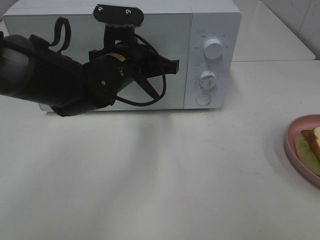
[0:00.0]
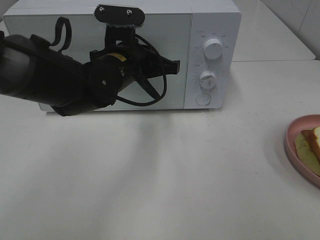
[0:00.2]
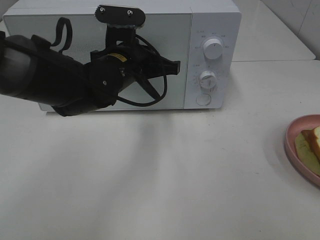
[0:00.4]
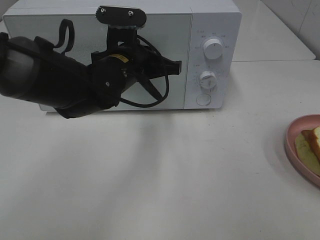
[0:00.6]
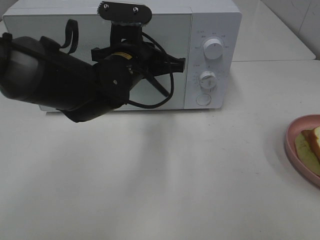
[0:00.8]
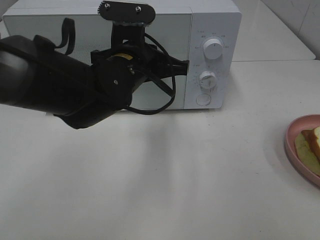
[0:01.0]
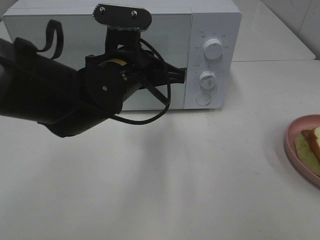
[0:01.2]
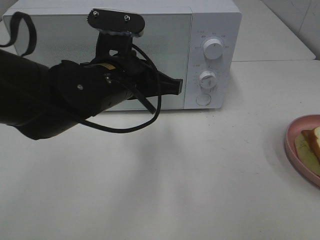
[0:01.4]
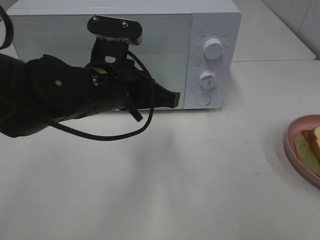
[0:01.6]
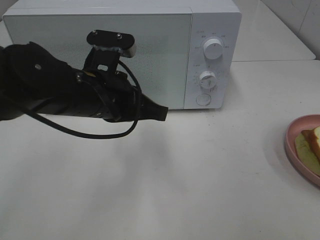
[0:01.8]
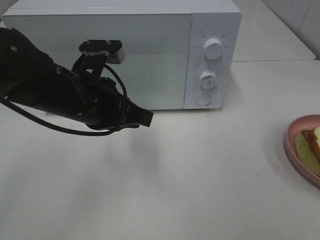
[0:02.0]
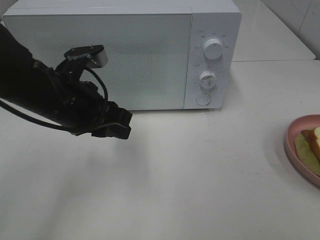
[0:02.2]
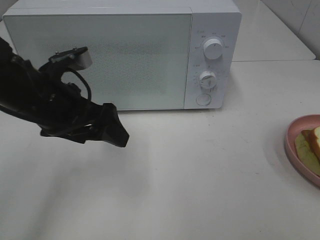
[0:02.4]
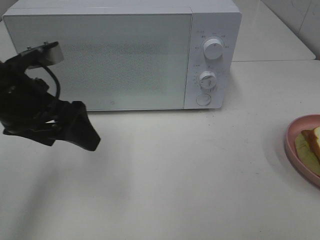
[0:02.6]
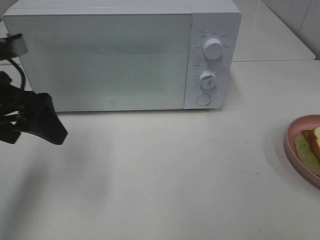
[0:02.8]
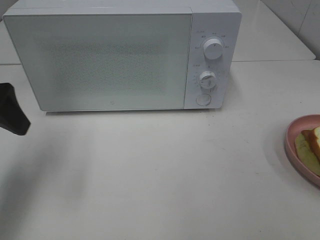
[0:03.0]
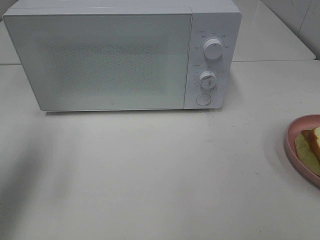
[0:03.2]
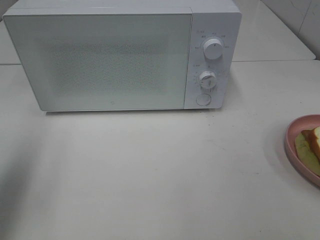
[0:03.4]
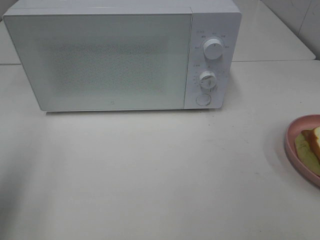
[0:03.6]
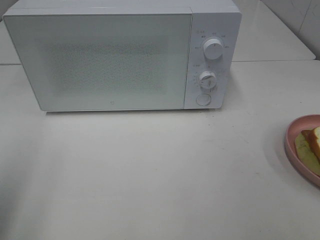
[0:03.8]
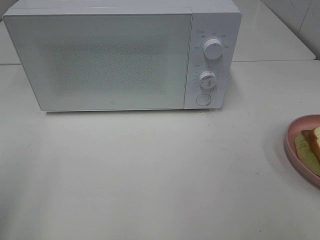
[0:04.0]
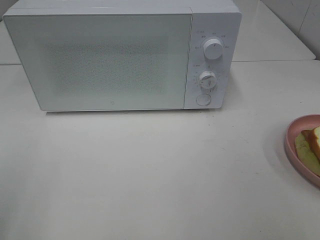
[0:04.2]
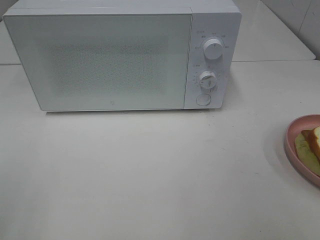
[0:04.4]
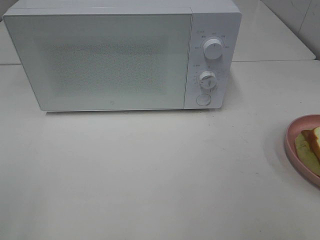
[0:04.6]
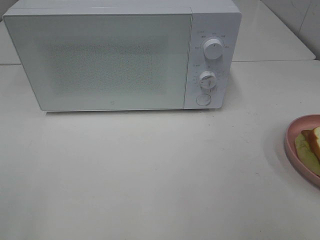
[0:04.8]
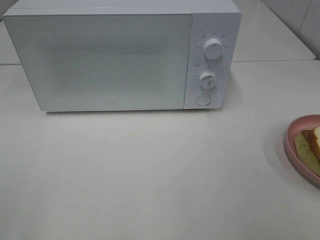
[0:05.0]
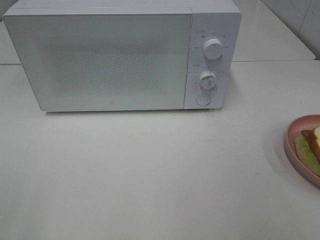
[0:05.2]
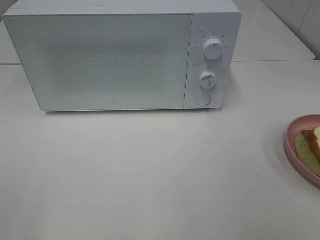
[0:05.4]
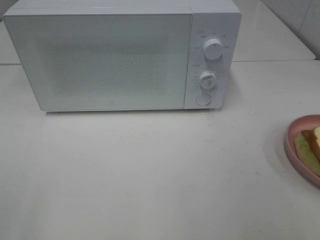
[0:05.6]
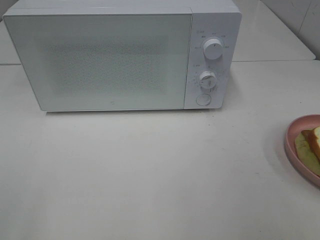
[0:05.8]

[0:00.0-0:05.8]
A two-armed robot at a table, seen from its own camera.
Task of the whole recording: Heat Sandwich.
0.0 to 1.4 s: The left gripper is displaced backward by some 5 cm.
1.4 to 2.8 s: The left gripper is displaced to the left by roughly 15 cm, and opens.
2.8 to 4.4 s: The left gripper heads backward and to the left, covering some 25 cm.

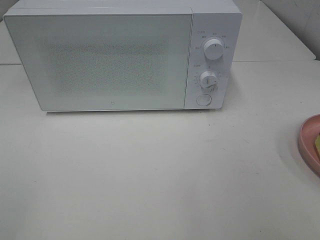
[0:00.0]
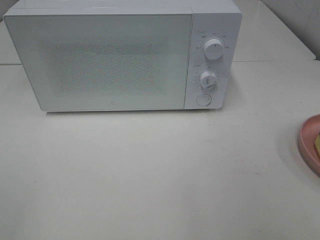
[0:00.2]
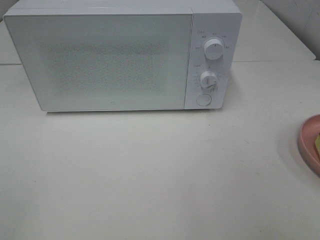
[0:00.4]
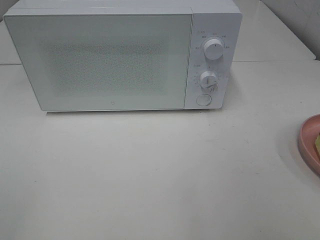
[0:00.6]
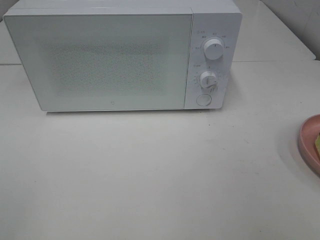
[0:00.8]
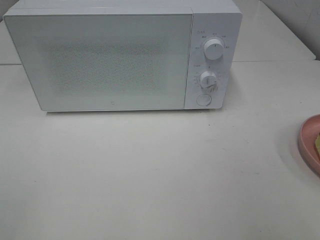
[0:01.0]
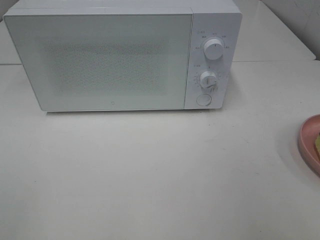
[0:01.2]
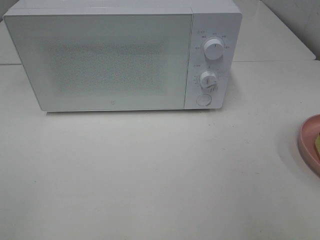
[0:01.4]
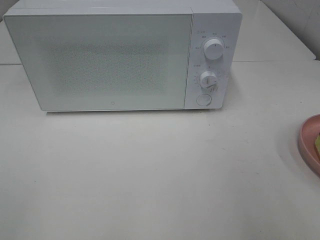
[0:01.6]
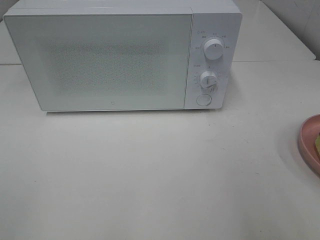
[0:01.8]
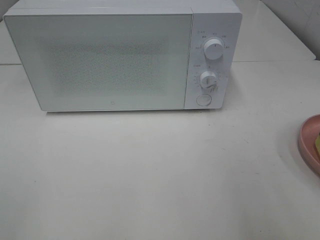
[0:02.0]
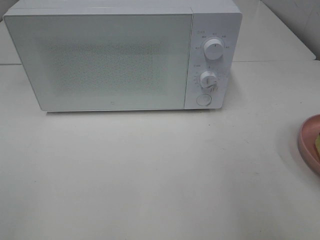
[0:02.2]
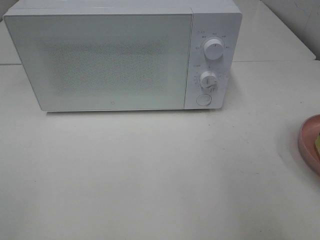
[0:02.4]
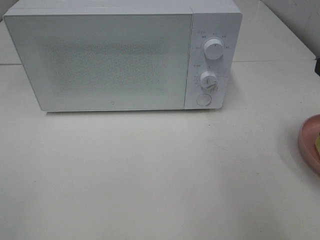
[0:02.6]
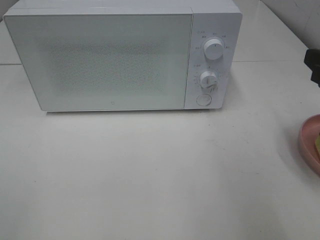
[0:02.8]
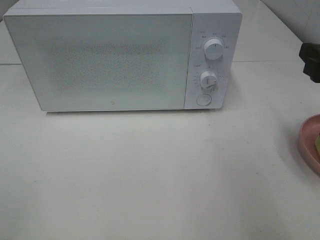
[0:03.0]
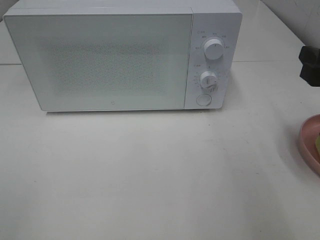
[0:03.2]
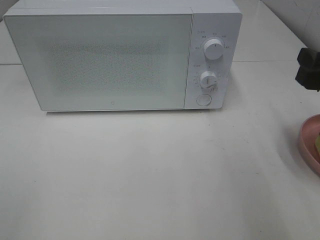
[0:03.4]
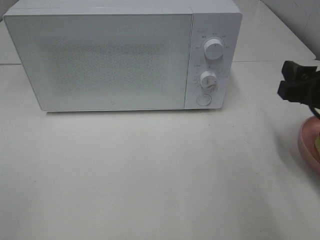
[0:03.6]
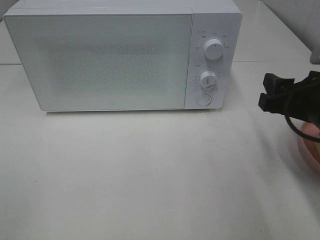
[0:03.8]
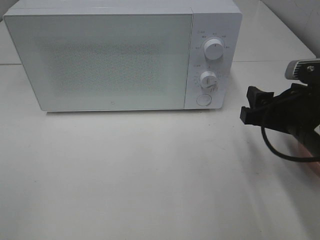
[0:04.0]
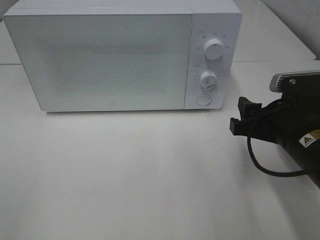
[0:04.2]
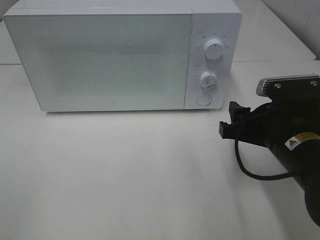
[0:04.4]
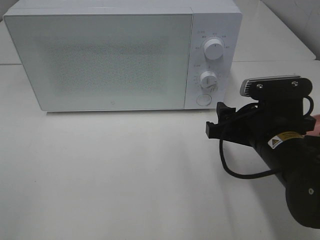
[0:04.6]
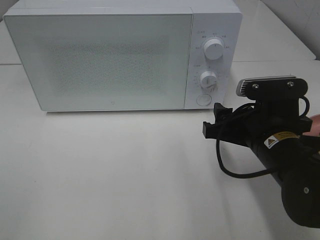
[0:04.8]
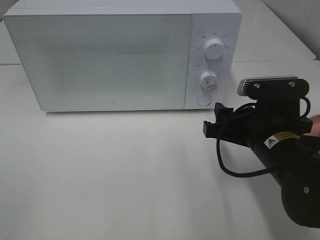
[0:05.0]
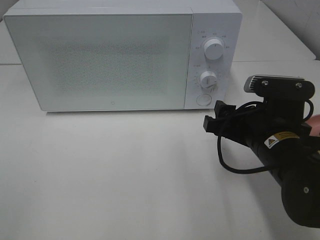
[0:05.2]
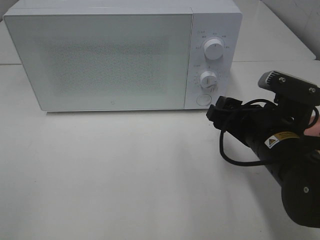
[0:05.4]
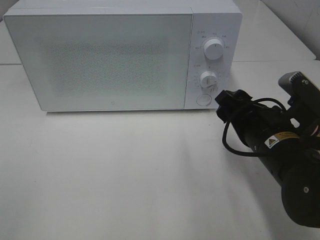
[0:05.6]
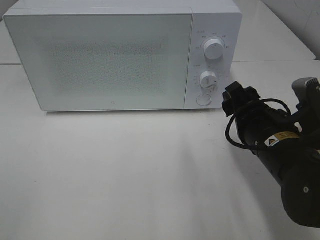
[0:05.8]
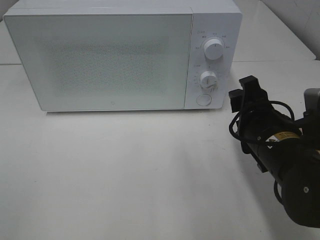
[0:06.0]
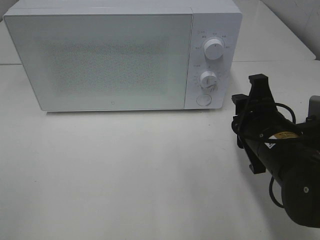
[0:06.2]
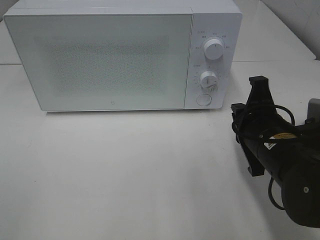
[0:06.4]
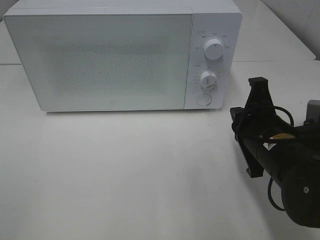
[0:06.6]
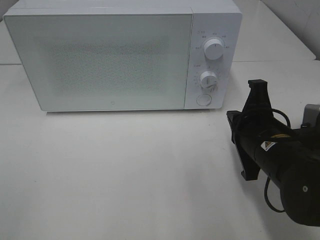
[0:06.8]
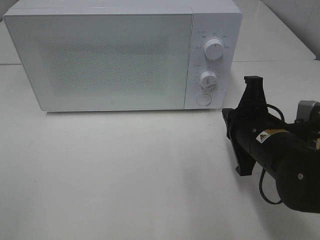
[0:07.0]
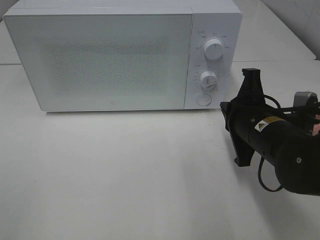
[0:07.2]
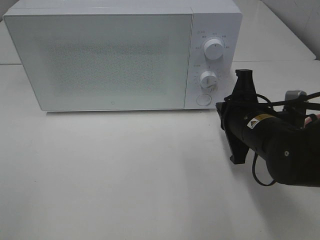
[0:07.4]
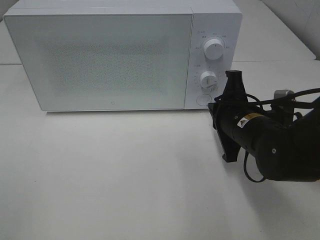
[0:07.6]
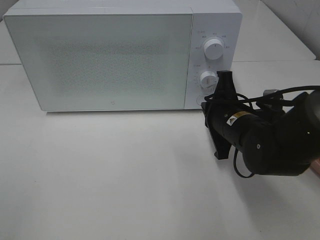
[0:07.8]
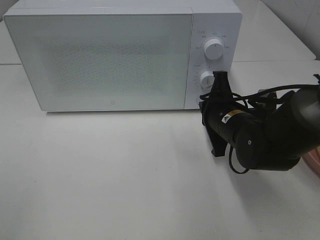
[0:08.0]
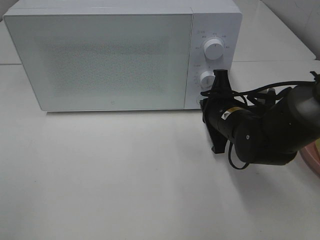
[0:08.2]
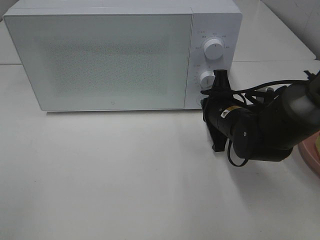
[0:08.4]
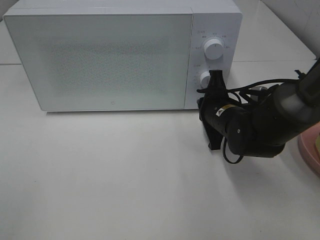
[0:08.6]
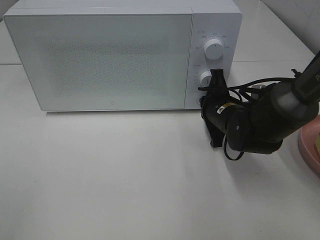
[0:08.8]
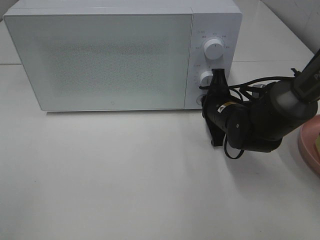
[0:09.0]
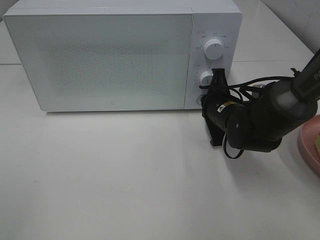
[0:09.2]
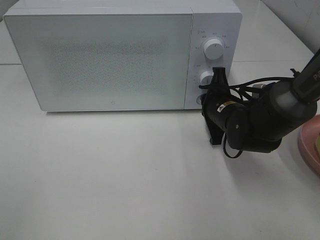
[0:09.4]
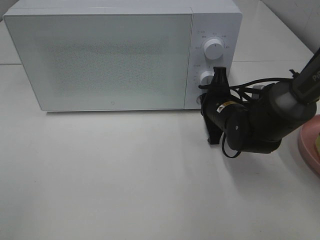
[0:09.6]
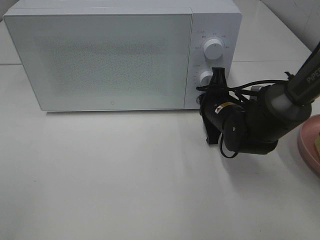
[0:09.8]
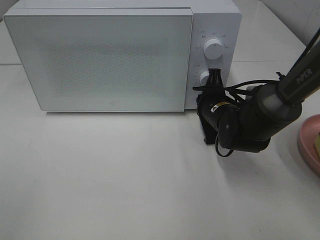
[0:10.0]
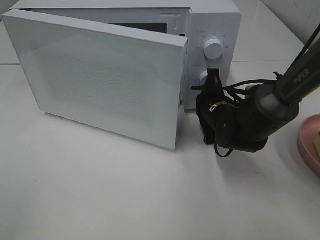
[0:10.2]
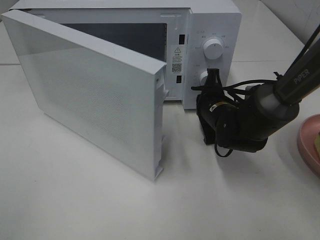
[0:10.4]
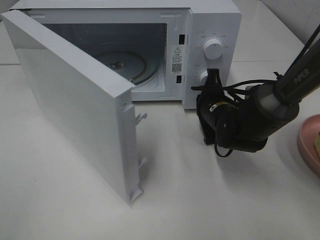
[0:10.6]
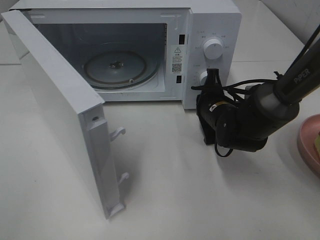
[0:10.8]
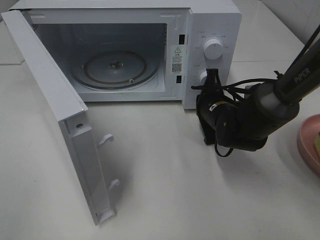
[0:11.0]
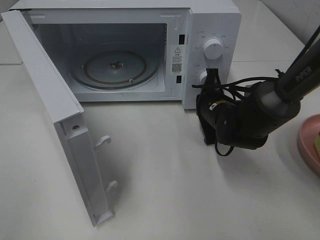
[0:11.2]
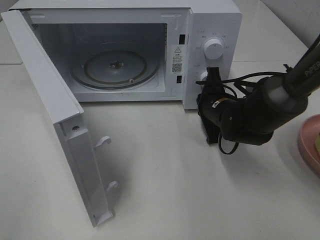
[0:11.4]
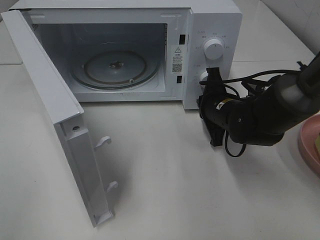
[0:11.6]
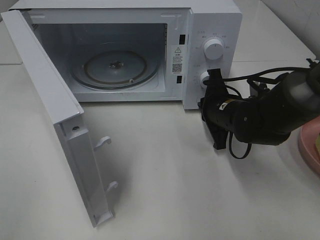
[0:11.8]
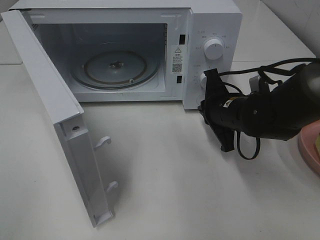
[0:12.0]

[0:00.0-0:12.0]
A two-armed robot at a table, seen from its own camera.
Task of the whole recording: Heat Sandwich.
Step, 0.0 to 12.0 s: Right hand: press the switch.
1.6 to 3.0 s: The right gripper is displaced forward by about 15 cm.
3.0 to 4.4 s: The right gripper heads downward and to the left, covering approximately 15 cm.
6.0 to 7.6 s: The right gripper goes about 5 cm forward, and closes its fingers.
7.6 to 9.0 s: The right gripper goes some 10 cm forward.

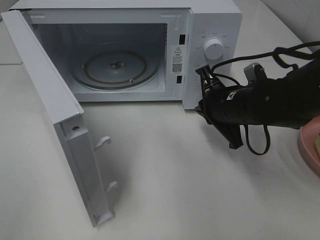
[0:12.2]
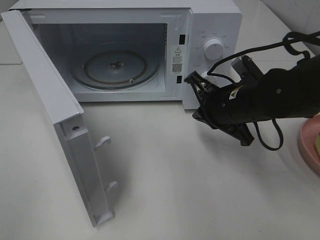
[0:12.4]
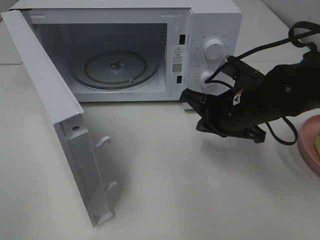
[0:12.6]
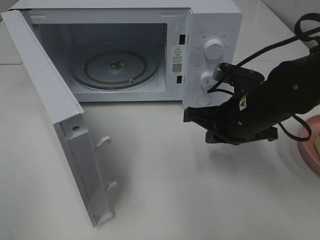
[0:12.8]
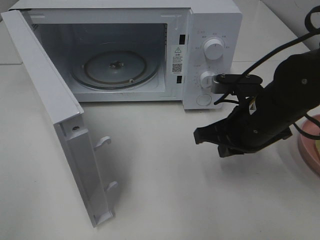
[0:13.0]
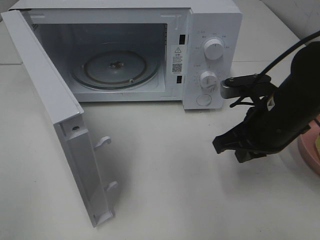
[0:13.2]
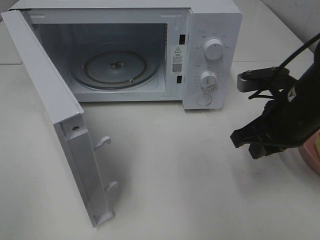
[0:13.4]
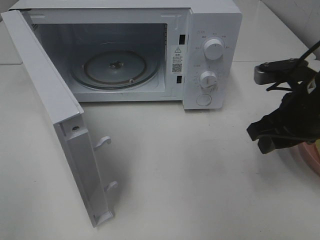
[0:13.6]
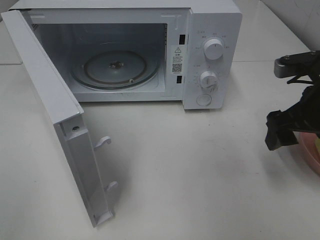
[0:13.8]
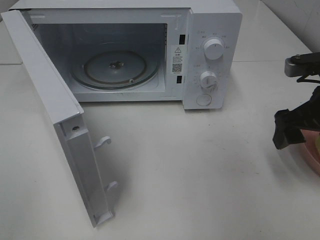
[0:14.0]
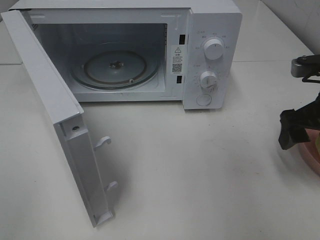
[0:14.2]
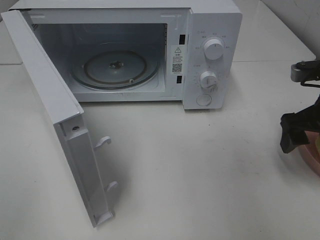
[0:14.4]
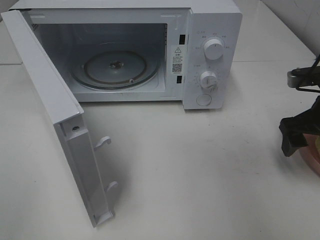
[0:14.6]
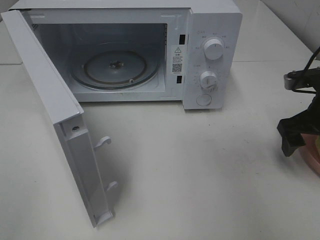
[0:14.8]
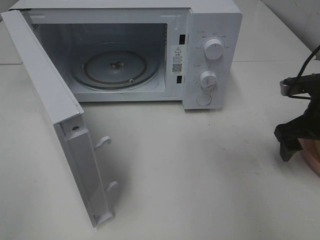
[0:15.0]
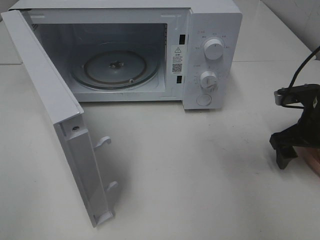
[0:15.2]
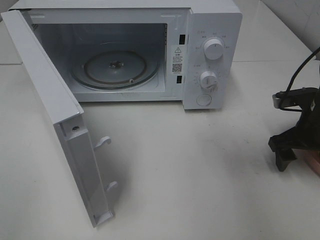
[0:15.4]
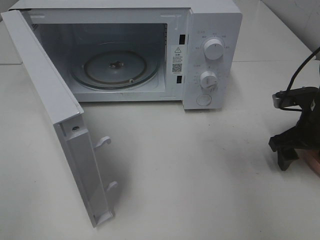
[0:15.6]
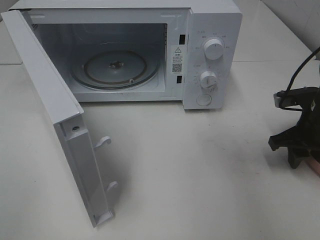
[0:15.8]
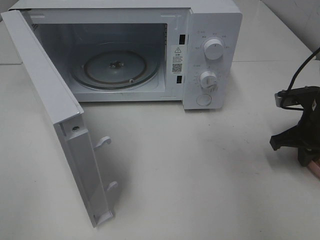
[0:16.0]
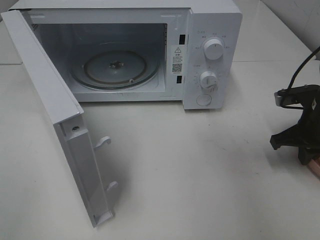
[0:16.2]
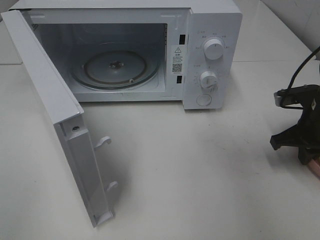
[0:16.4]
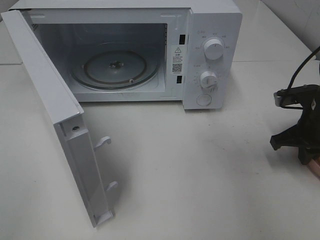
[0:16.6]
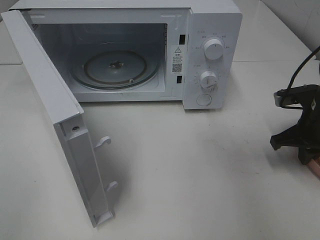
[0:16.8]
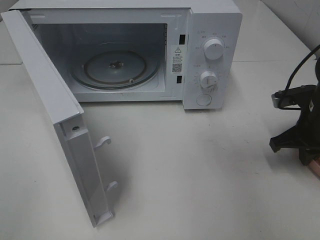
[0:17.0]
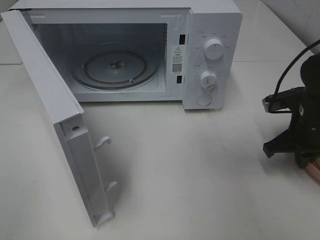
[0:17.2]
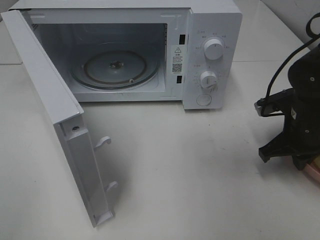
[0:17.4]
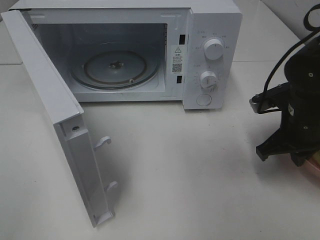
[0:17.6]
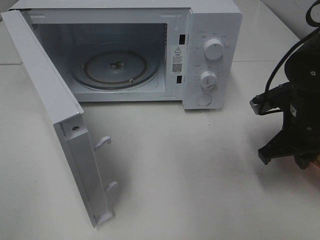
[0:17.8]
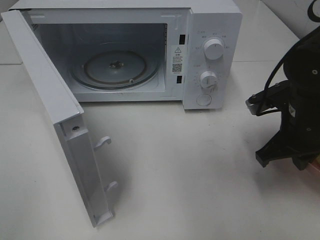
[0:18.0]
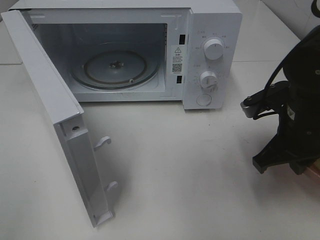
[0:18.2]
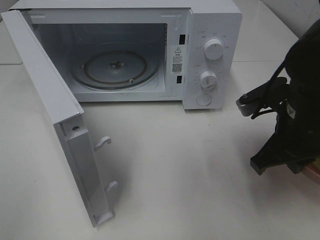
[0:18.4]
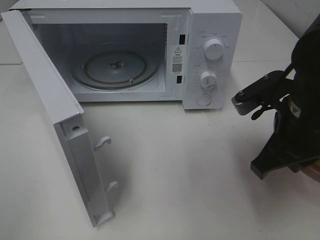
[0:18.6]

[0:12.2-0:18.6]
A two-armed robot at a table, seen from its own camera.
Task of the whole recording: Heat Sandwich.
Step, 12.2 to 16.2 s: Right hand: grab the plate with the sandwich.
12.2 to 13.8 s: The right gripper is displaced to the right, upward and backward by some 15 cm, and opens.
13.8 to 15.4 s: The right gripper is displaced downward by approximately 10 cm.
15.4 to 17.0 s: The right gripper closes its fingers.
17.0 to 18.6 s: The right gripper goes about 15 cm to the left, backward and upward.
